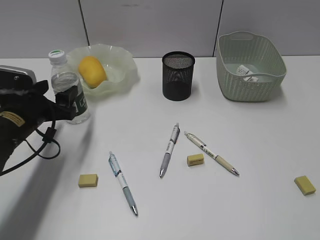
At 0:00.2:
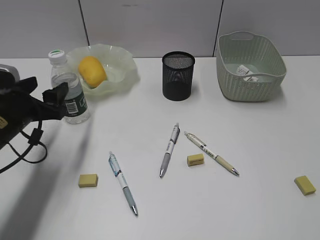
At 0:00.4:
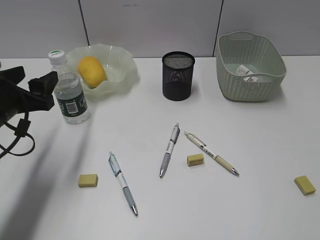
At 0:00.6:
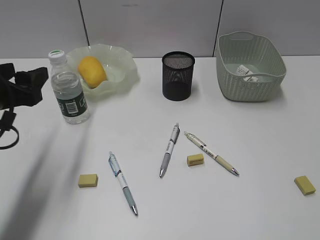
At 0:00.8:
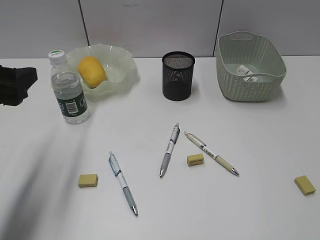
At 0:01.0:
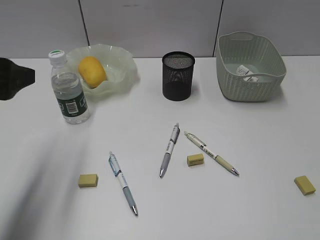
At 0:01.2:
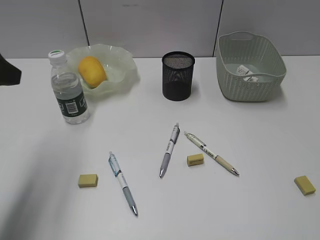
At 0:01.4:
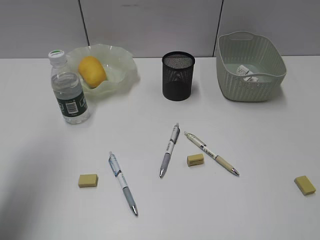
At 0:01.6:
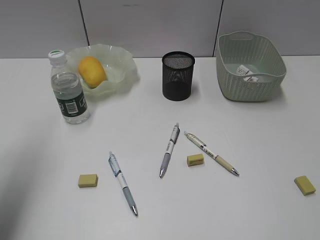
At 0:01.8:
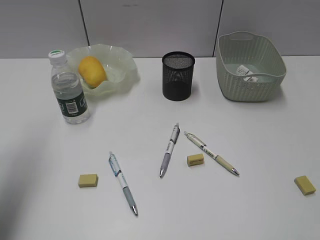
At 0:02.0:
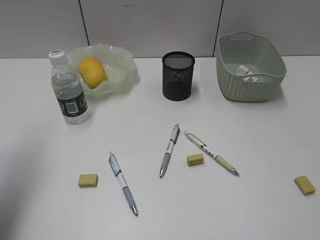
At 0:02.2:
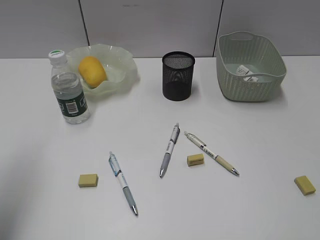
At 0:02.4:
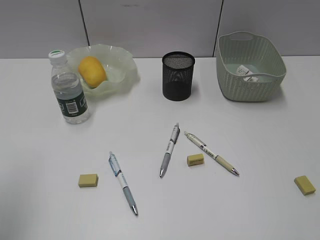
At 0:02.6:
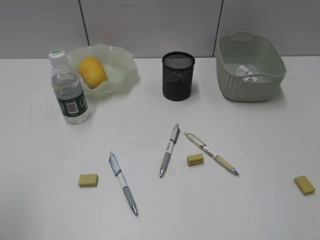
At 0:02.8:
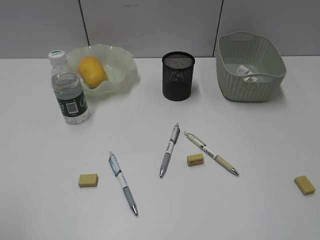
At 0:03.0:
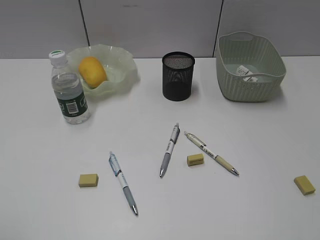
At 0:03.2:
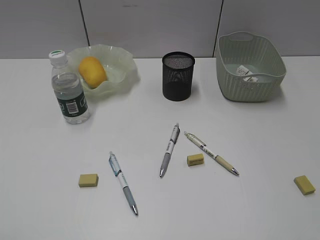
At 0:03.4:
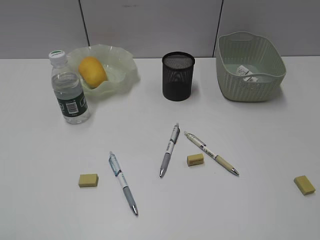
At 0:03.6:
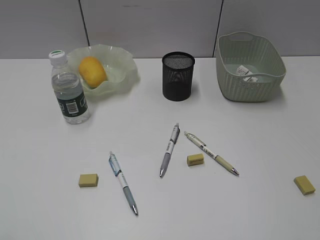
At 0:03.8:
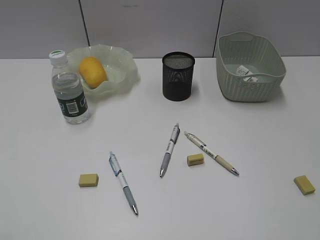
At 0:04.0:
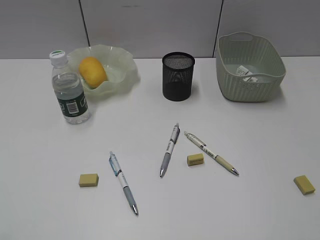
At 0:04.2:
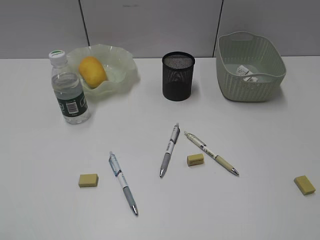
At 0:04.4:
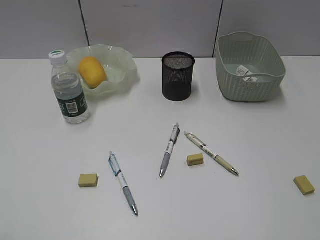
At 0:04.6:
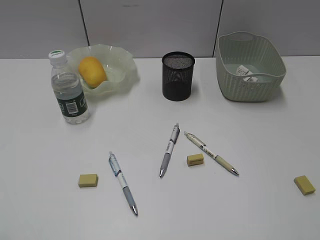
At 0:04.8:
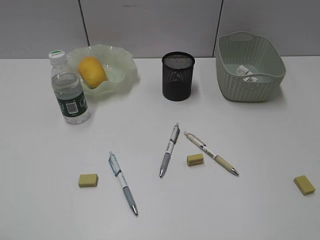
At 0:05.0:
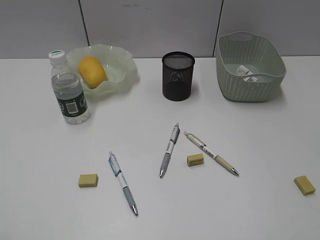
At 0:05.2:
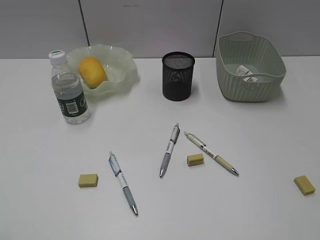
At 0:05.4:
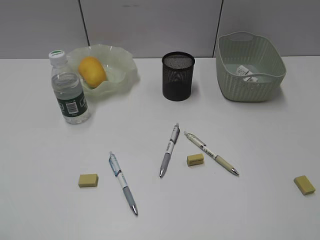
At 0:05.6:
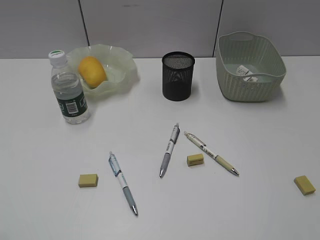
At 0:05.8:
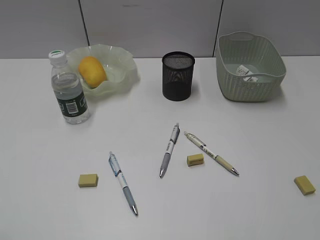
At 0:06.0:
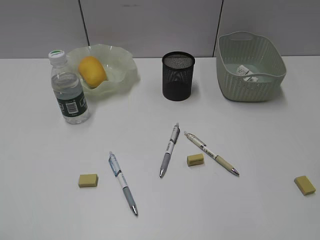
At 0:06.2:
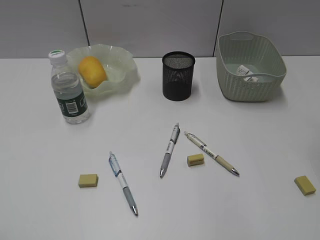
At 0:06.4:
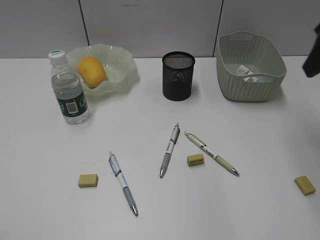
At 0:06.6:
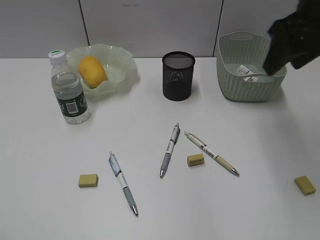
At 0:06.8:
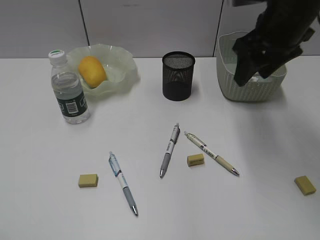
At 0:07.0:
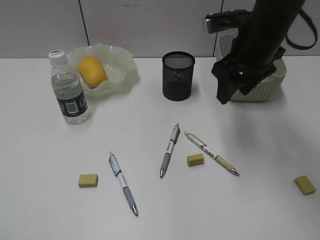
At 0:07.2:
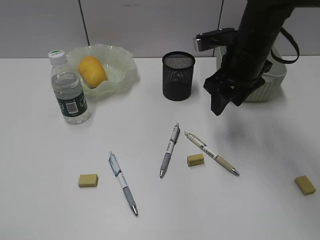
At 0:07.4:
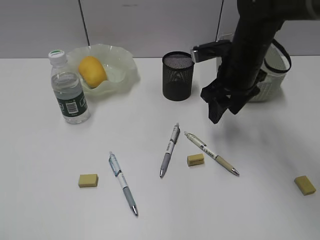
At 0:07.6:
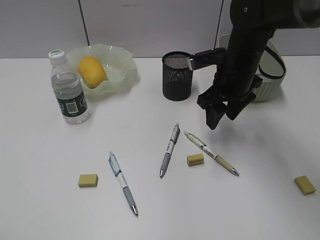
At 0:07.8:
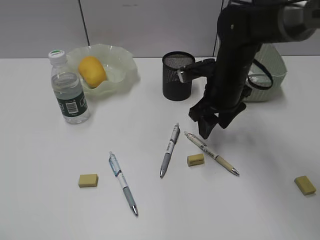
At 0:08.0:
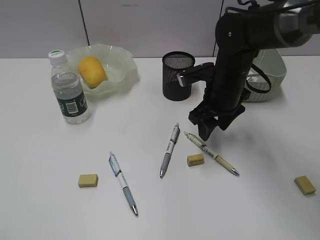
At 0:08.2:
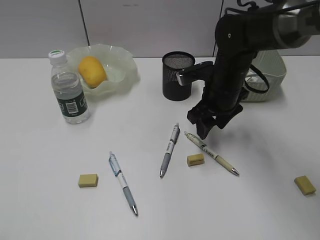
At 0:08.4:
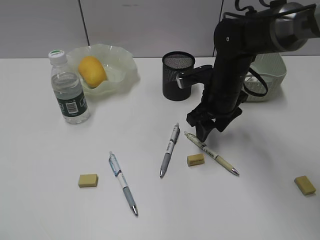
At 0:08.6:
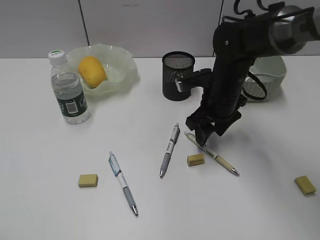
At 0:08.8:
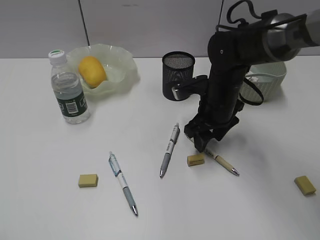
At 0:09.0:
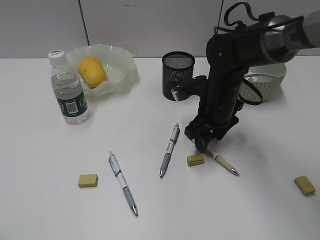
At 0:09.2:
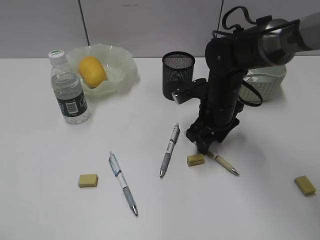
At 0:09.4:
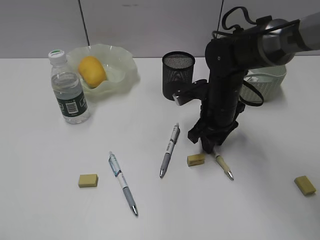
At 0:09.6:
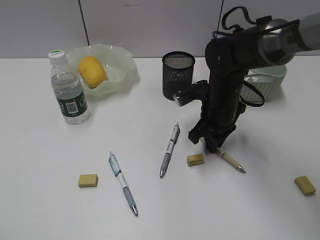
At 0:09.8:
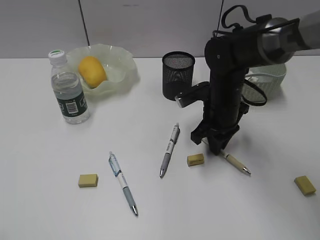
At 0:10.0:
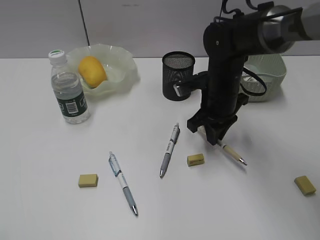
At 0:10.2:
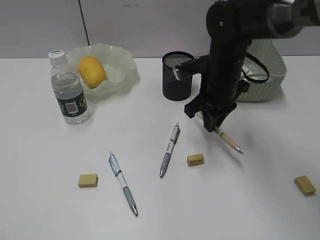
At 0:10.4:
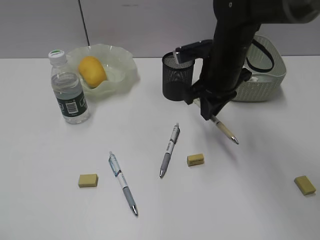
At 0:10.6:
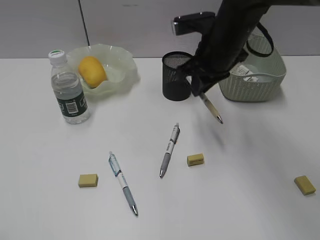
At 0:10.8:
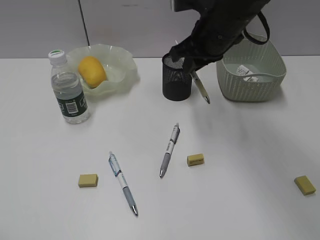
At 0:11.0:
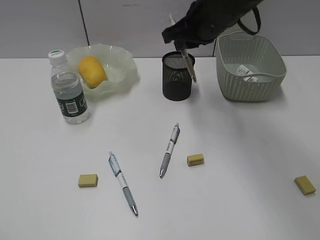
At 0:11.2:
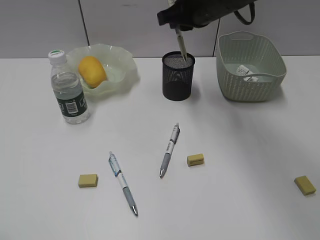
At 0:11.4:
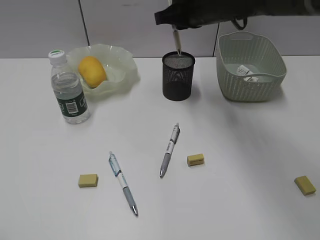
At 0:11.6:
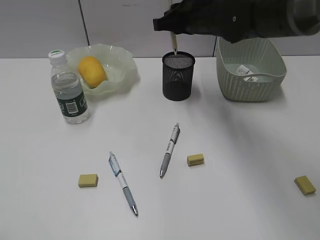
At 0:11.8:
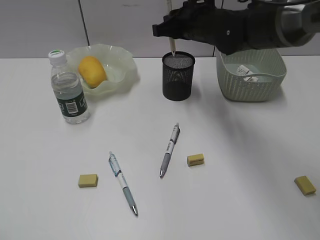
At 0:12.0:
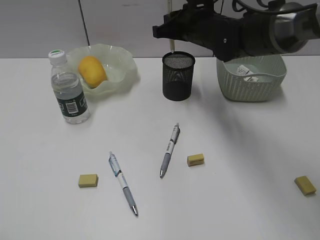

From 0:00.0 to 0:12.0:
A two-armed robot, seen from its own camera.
Step, from 0:00.2 to 0:09.6: Grasp the yellow pen with right gripper.
From 0:00.0 to 0:01.6: The left gripper travels upward by some 20 cm.
From 0:01.6 to 0:03.0: The left gripper is displaced backward by approximately 25 cm.
From 0:06.0 to 0:07.6: The right gripper heads forward, downward and to the left, covering some 30 cm.
From 0:07.6 to 0:09.0: The right gripper travels downward by roughly 5 cm.
From 0:09.0 to 0:10.4: The right gripper moves upward, roughly 5 cm, and closes its fingers.
From 0:10.4 to 0:12.0: The right gripper travels forward by approximately 5 cm, and goes upward and returns, about 10 cm each way.

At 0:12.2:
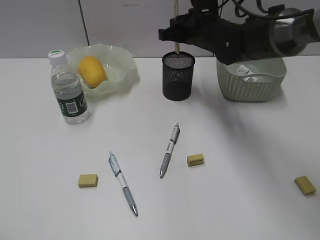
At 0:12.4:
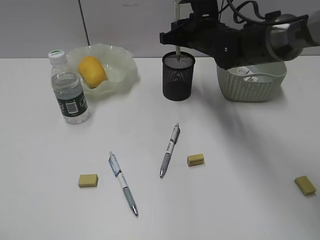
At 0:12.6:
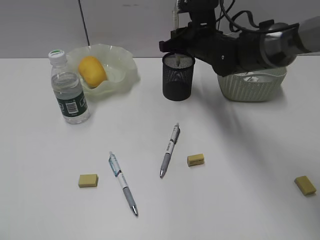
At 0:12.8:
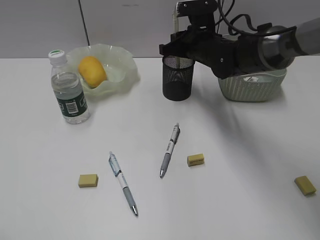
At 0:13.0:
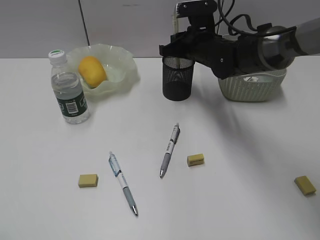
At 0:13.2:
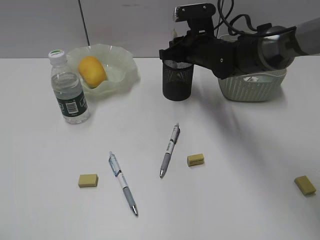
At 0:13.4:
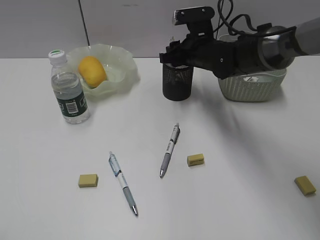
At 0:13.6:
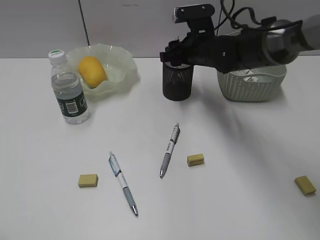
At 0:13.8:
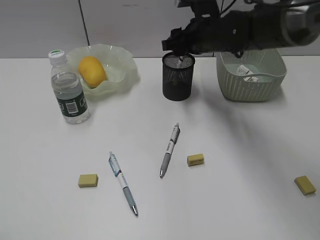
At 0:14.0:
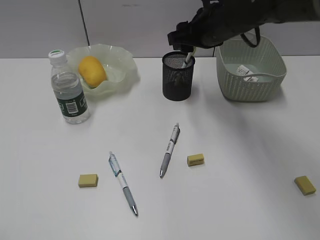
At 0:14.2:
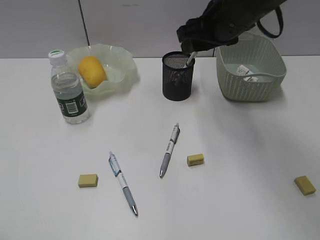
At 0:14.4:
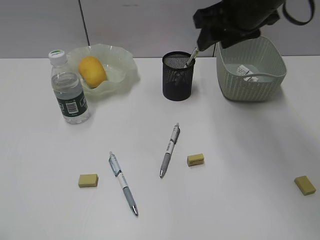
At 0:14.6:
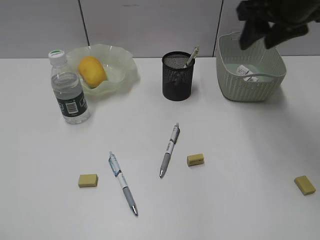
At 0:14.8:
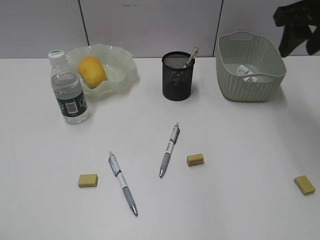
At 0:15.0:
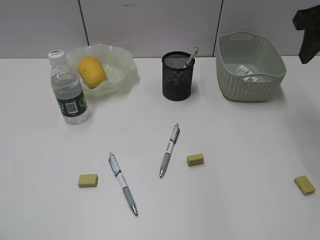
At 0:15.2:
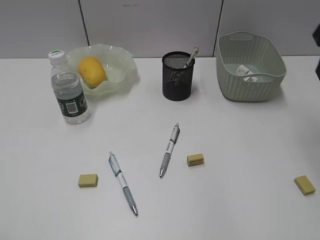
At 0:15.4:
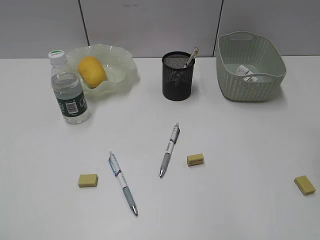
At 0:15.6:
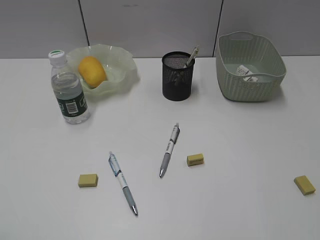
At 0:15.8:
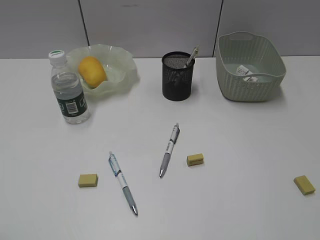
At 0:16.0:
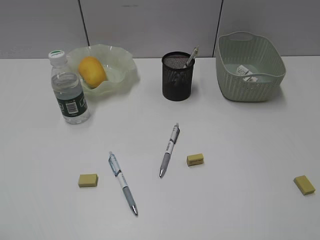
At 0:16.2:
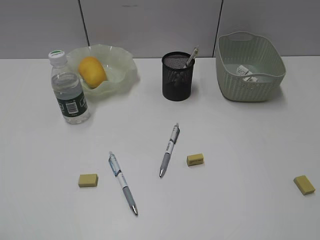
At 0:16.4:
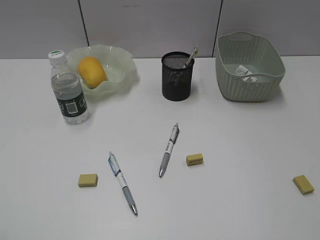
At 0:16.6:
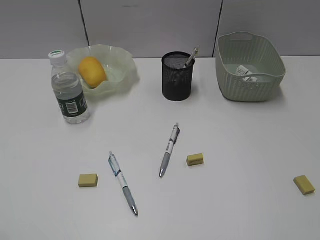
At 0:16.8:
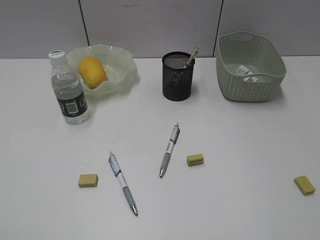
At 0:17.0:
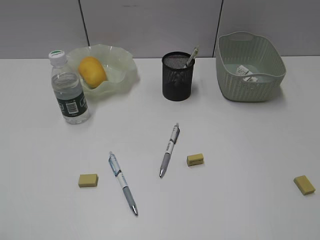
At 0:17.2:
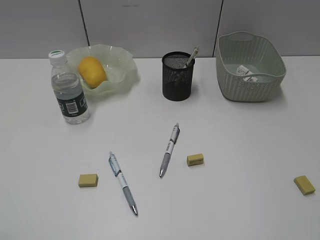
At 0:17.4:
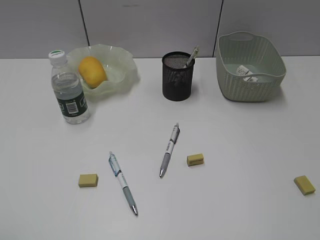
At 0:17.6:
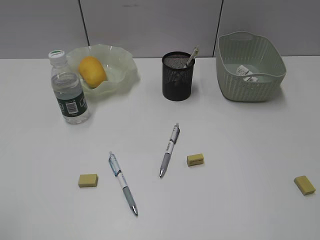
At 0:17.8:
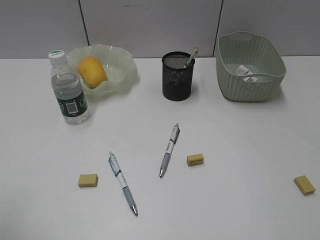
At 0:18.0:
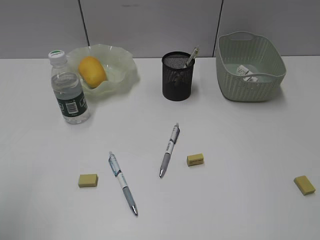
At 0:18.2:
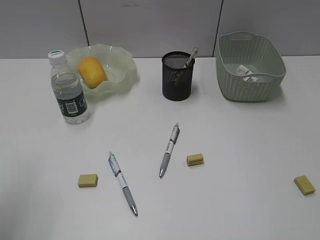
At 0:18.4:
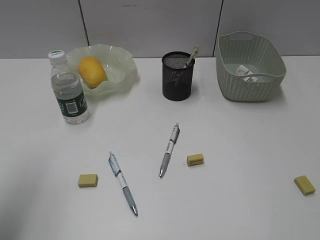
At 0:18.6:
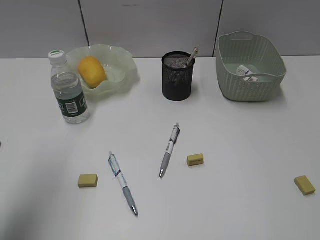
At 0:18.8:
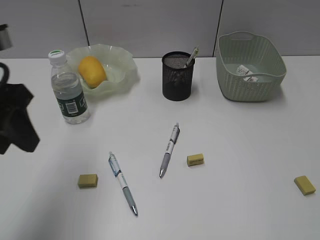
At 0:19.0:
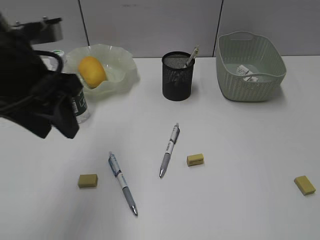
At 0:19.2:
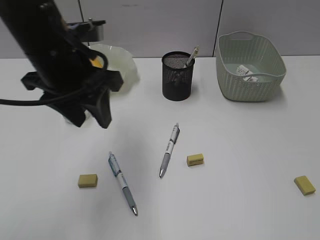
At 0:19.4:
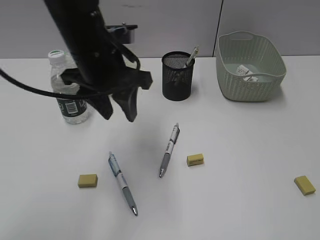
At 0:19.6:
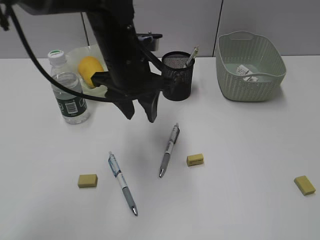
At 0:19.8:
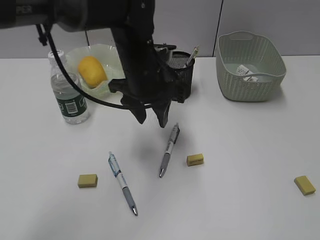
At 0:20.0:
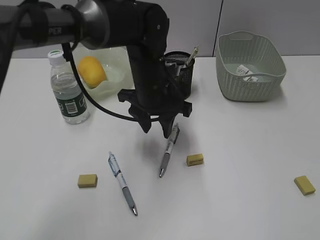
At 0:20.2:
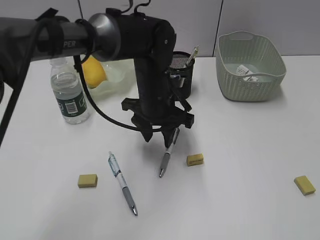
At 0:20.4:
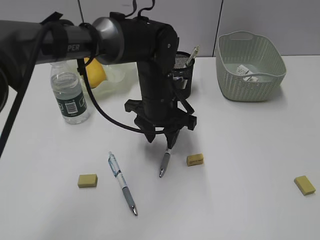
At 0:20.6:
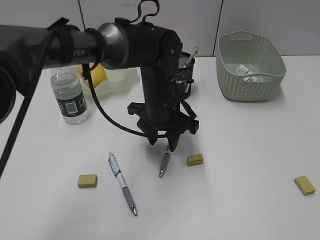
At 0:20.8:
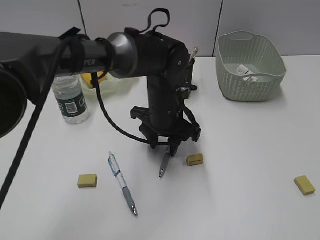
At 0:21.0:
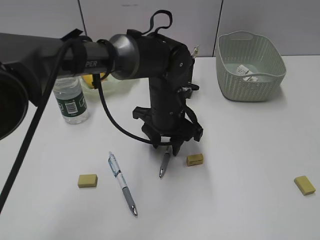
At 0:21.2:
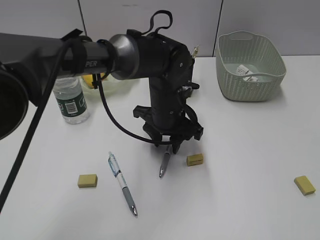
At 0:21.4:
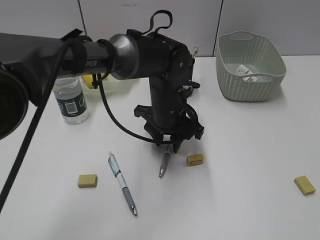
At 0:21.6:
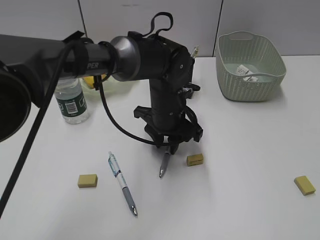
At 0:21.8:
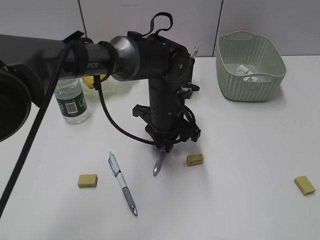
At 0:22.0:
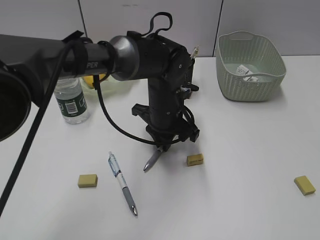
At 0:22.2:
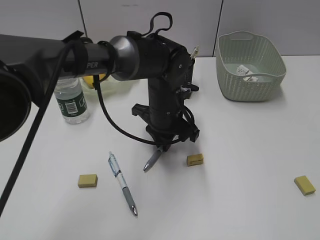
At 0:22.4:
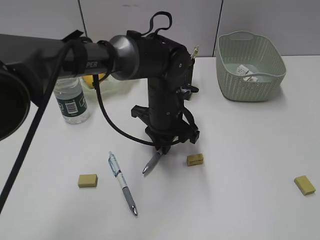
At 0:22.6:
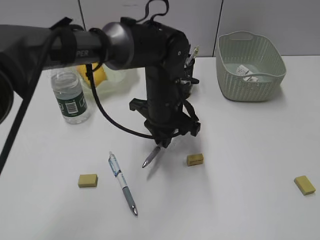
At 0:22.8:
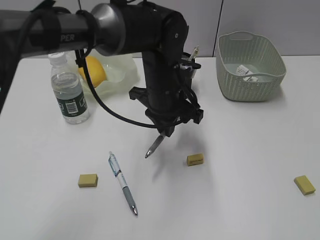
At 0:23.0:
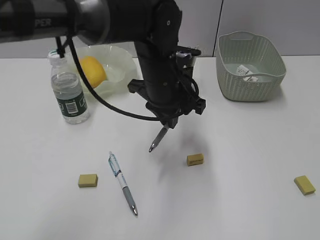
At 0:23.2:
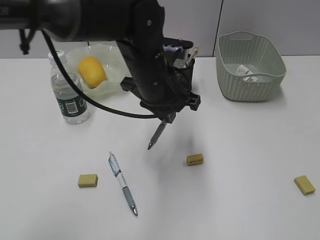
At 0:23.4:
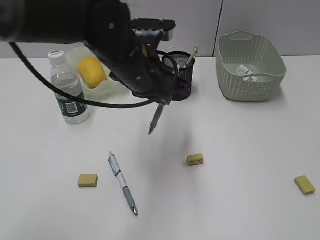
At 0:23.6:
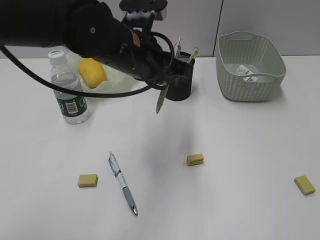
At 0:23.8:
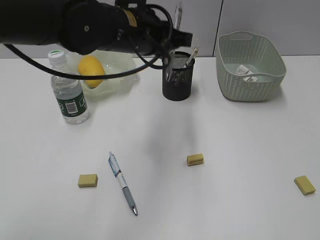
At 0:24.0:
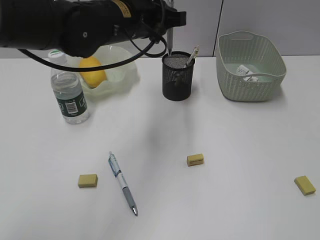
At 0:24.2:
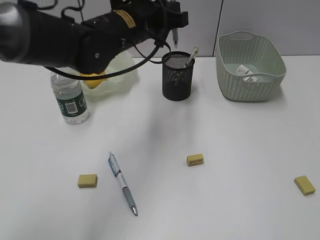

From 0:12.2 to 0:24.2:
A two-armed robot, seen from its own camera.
Step, from 0:13.8 to 0:22.2: Grasp the gray pen with left gripper.
From 0:12.2 to 0:13.8: The right gripper opens.
From 0:13.8 to 0:15.2: The right gripper travels to the right, upward and backward by about 25 cm.
From 0:16.6 to 0:18.2: The left gripper goes about 15 cm forward.
From 0:18.2 to 0:19.8: The left gripper travels to the right and forward by roughly 35 cm.
From 0:19.8 to 0:21.2: The left gripper heads downward, covering approximately 10 cm.
From 0:21.2 to 0:22.6: The left gripper closes.
From 0:22.6 to 0:24.2: The left gripper is displaced upward and to the left by about 10 cm.
